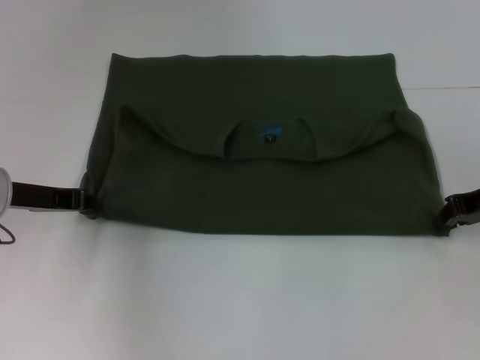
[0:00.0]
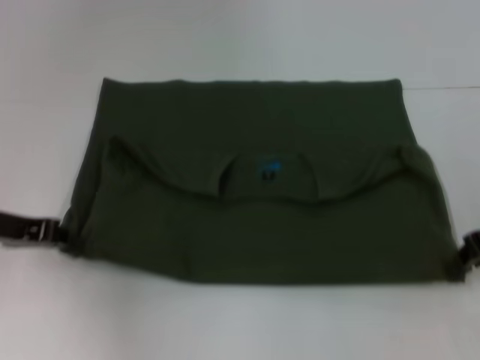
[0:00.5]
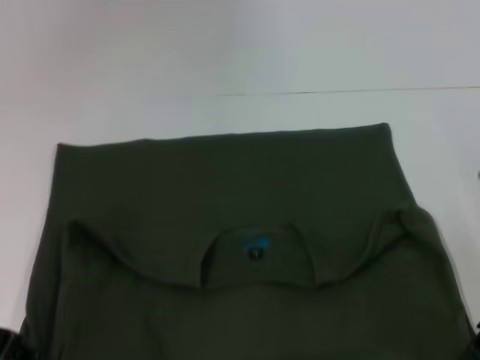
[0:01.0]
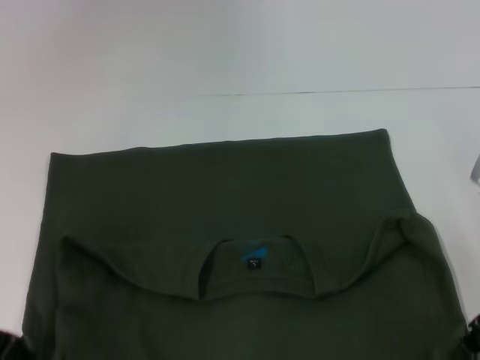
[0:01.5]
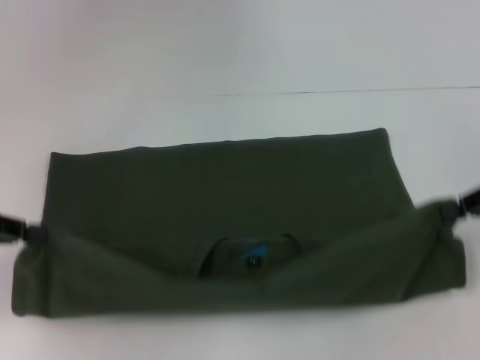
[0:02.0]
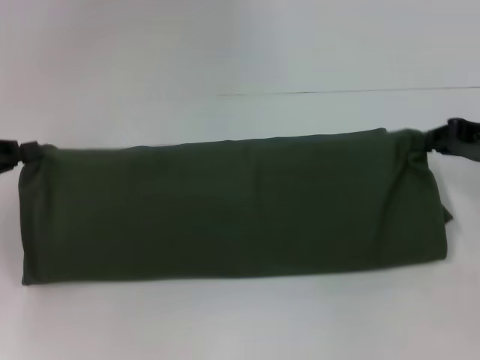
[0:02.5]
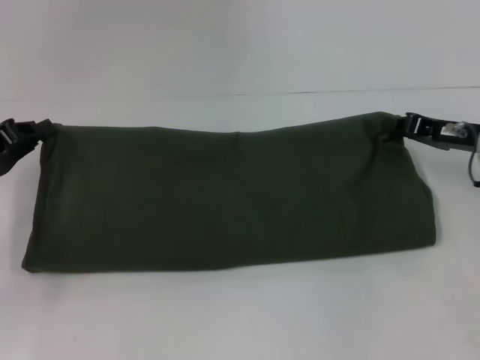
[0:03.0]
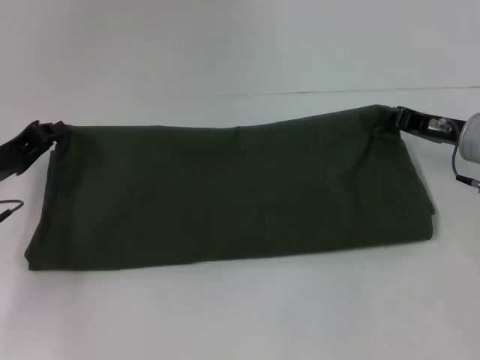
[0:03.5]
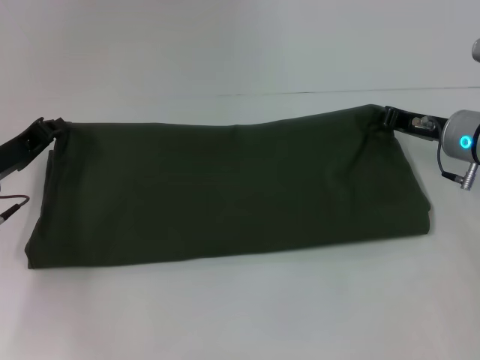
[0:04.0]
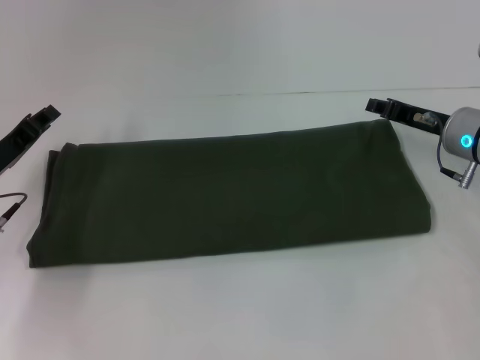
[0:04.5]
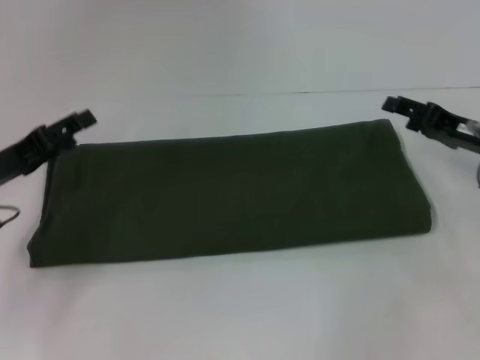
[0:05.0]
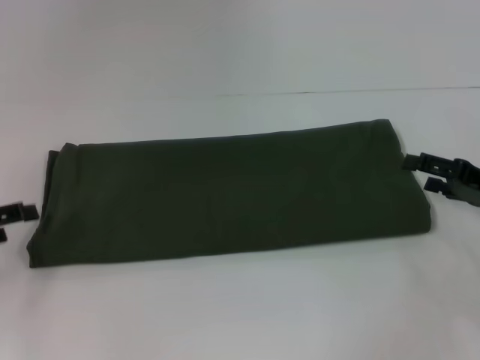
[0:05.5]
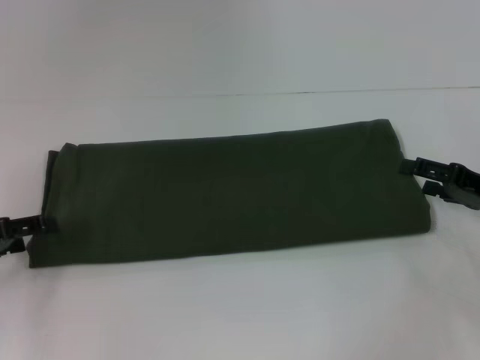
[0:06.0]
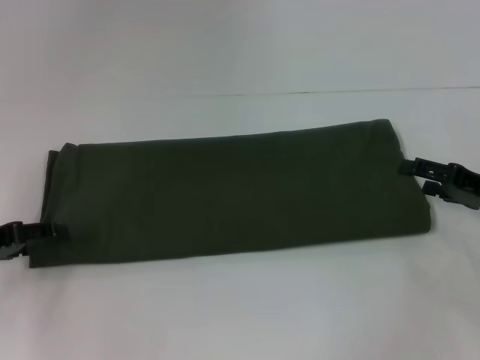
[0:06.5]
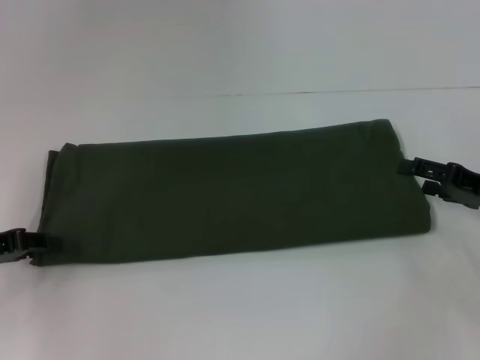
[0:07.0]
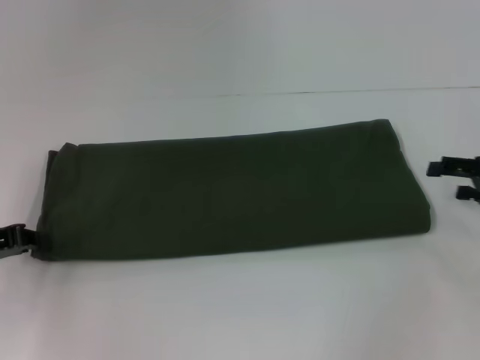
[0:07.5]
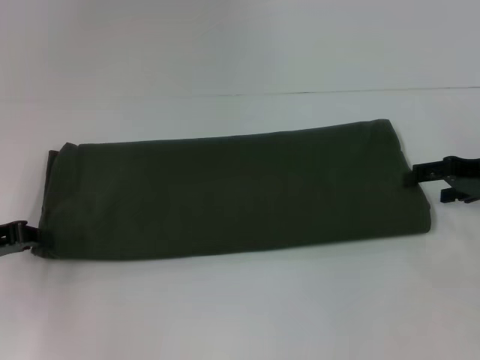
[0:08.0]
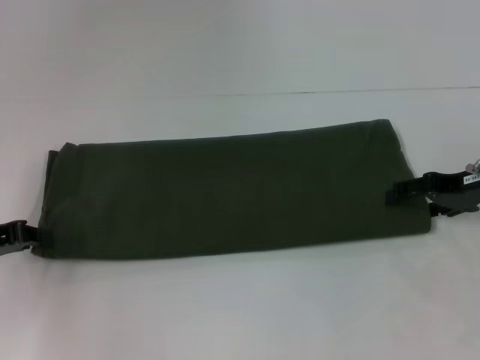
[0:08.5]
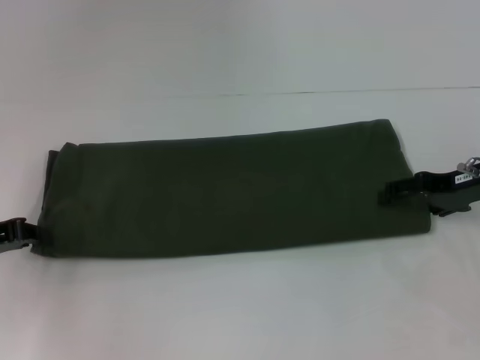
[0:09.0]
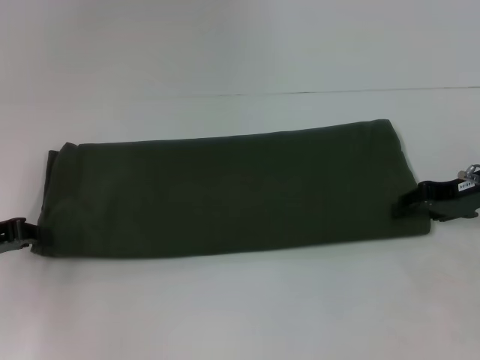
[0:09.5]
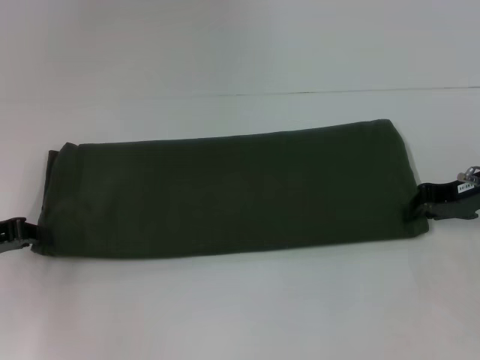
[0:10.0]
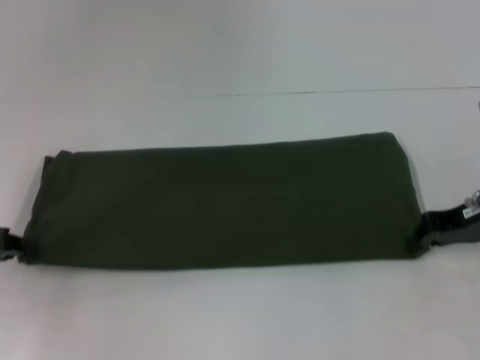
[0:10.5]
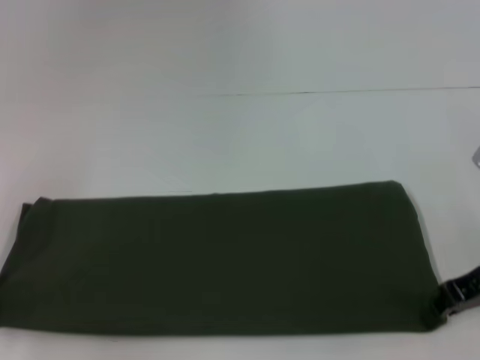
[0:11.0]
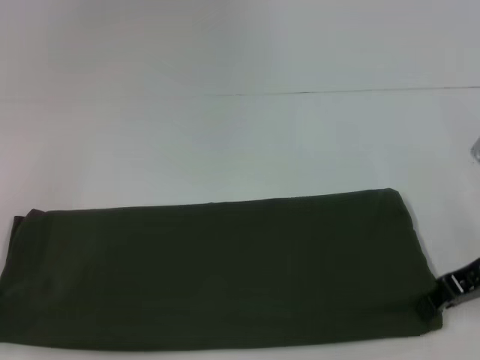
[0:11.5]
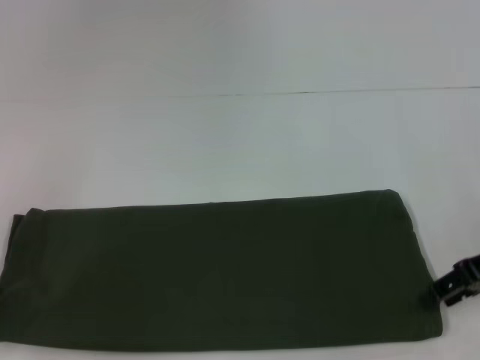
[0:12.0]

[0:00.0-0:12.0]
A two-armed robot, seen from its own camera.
Step, 1.5 to 4.0 s: Fold the clothes with your right hand.
0.0 to 2.0 s: The right gripper shifts about 5 cm upward. Meanwhile the left gripper goes roughly 10 cm to the left, backward and upward.
2.0 to 4.0 s: The left gripper moves downward, forward and to the right, roughly 10 cm; the right gripper heads downward, to the left and forward, covering some 15 cm.
4.0 to 6.0 s: The left gripper heads to the left and backward, covering roughly 10 cm, and opens, while the right gripper shifts roughly 10 cm backward and to the right, and opens its fingers.
6.0 to 8.0 s: The left gripper closes, while the right gripper moves forward, about 5 cm.
8.0 to 10.0 s: The right gripper closes up.
10.0 to 12.0 s: Both grippers travel together backward, some 5 cm.

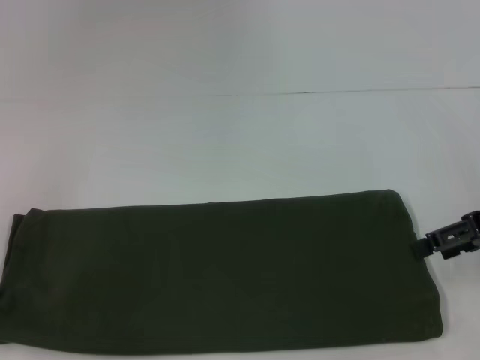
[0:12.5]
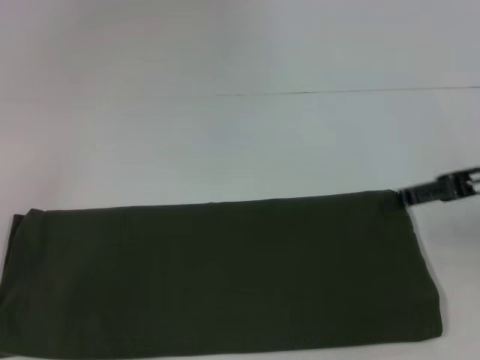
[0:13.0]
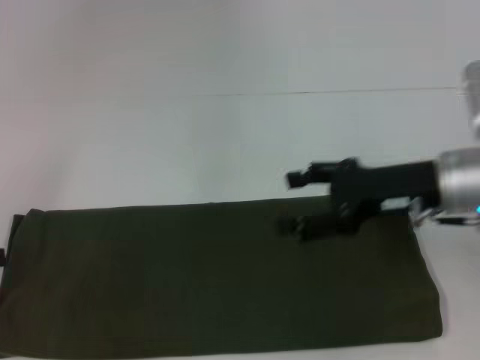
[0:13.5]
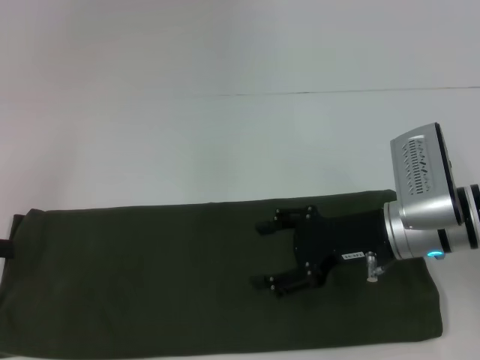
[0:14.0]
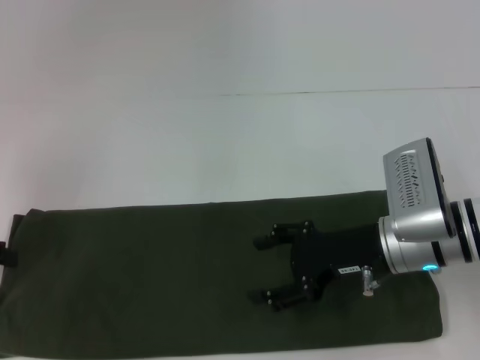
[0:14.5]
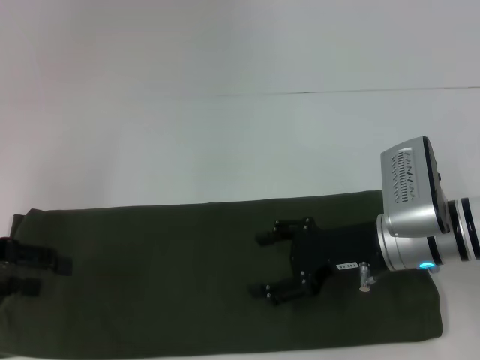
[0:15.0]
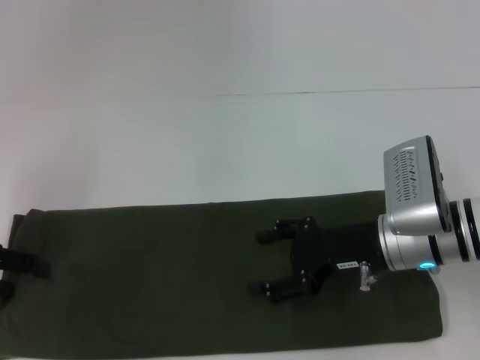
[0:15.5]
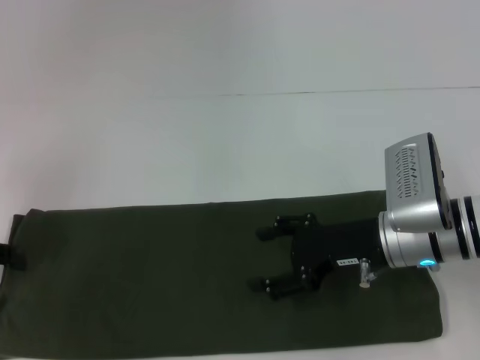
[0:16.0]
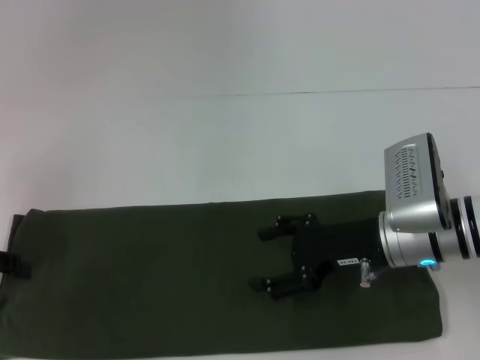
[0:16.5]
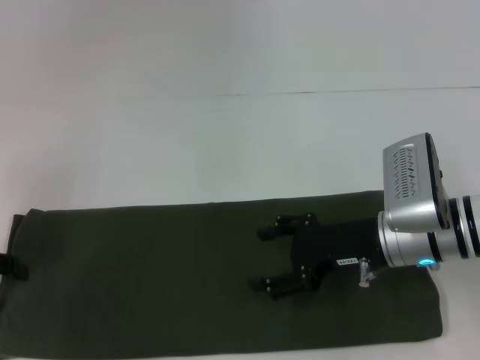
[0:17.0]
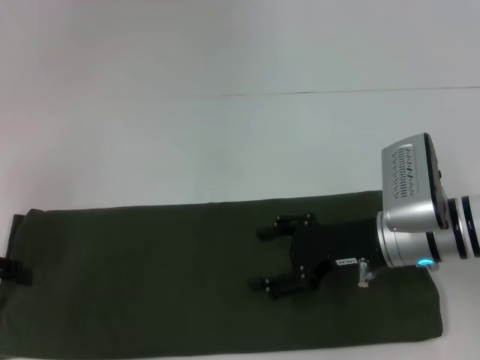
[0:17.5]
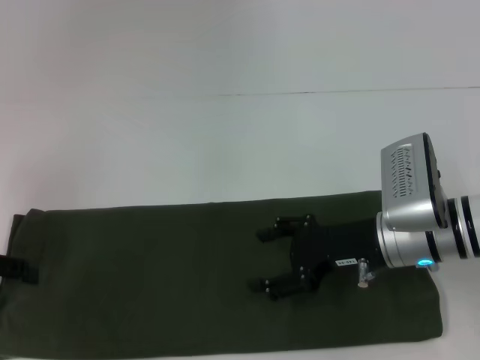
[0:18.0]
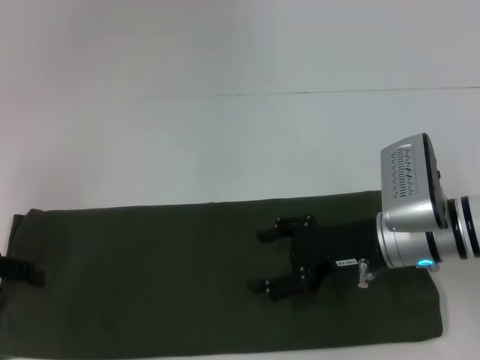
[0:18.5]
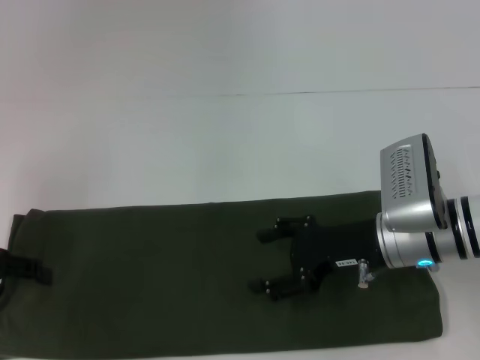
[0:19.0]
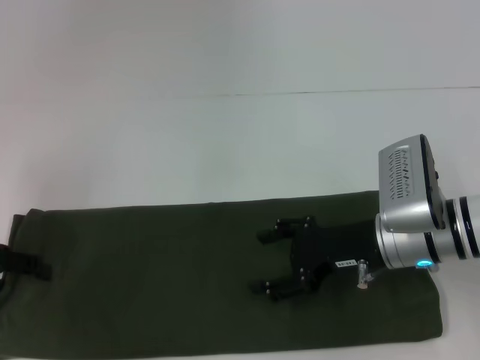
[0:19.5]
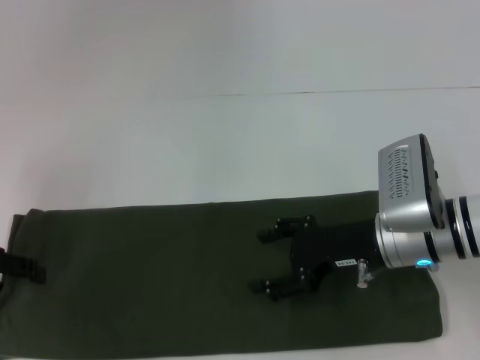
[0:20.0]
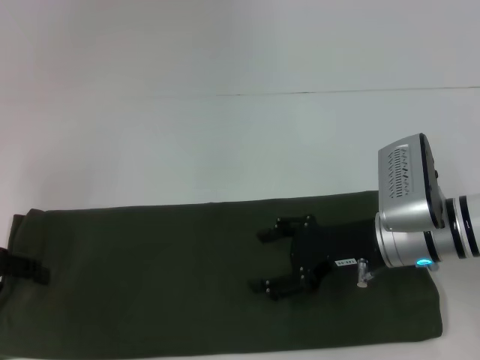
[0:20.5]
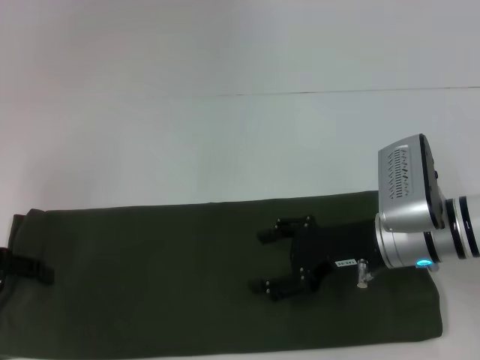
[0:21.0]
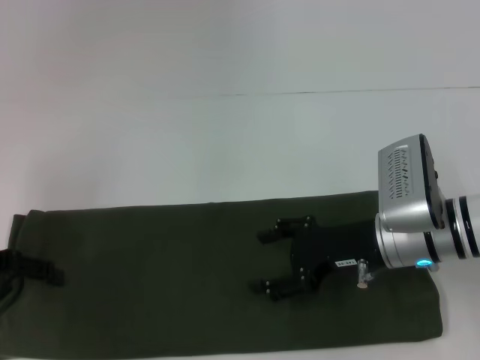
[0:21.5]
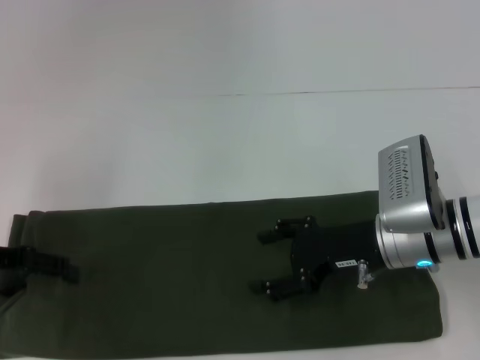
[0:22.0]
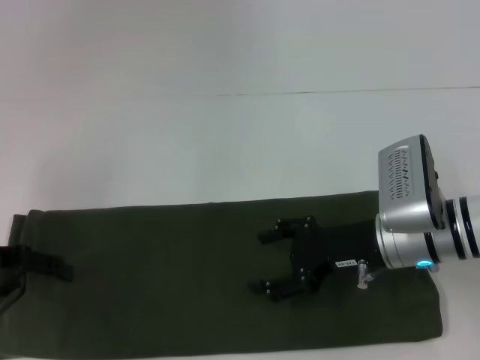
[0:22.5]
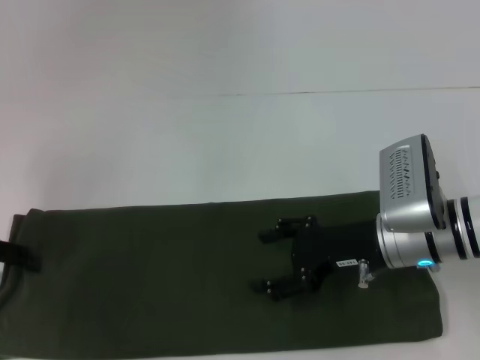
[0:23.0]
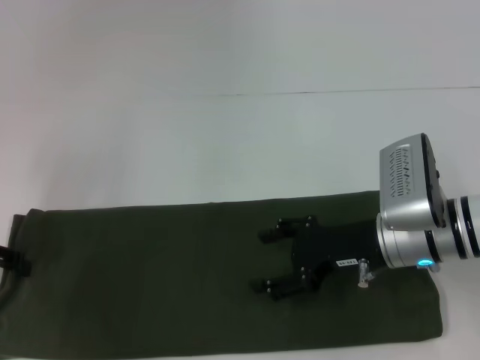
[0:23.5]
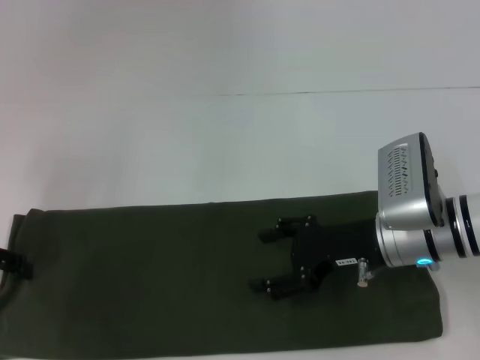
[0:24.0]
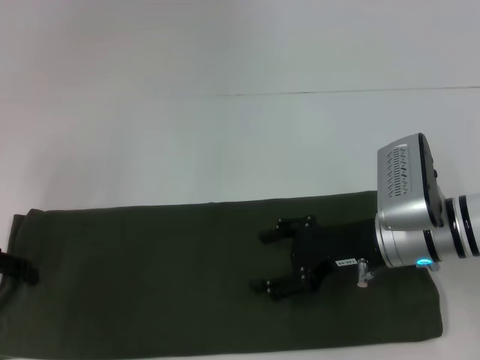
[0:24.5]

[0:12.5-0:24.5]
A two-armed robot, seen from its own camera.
12.5 to 14.5 s: The left gripper heads forward, covering about 5 cm, and opens up. Meanwhile the right gripper goes some 15 cm to the left and downward.
14.5 to 16.5 s: The grippers stay close to where they were, moving slightly.
16.5 to 18.5 s: Neither gripper changes place.
18.5 to 20.5 s: Both grippers stay about where they are.
22.5 to 24.5 s: There are only small adjustments of the grippers.

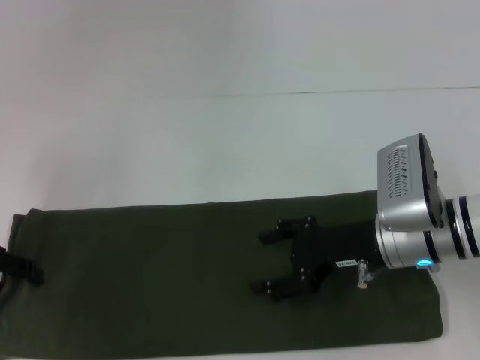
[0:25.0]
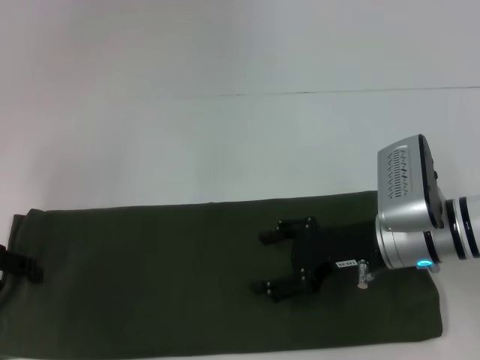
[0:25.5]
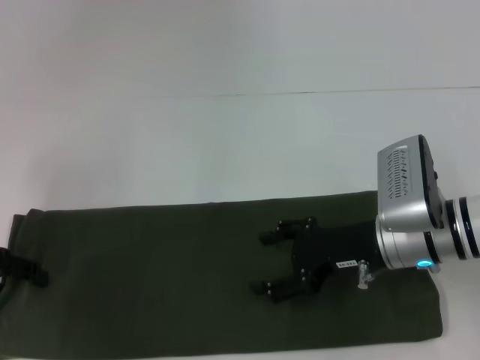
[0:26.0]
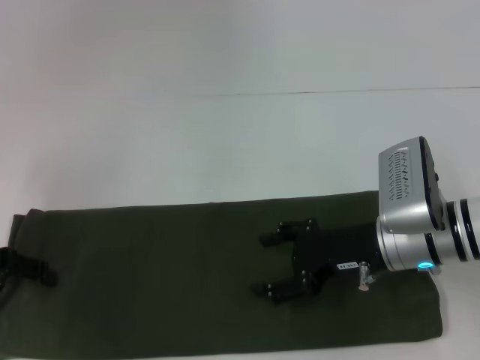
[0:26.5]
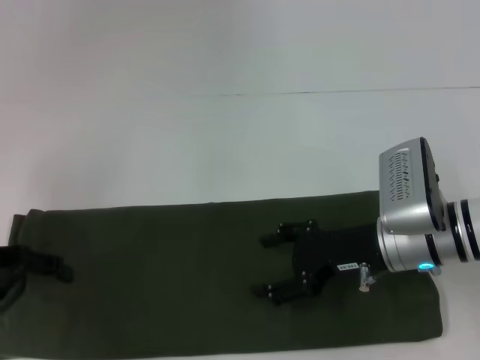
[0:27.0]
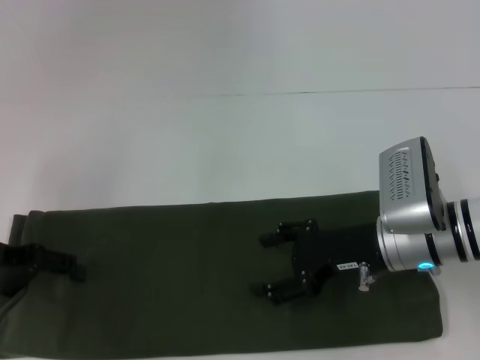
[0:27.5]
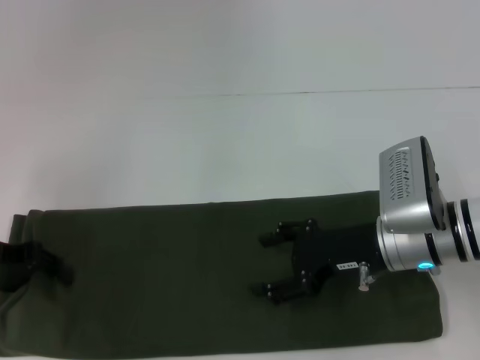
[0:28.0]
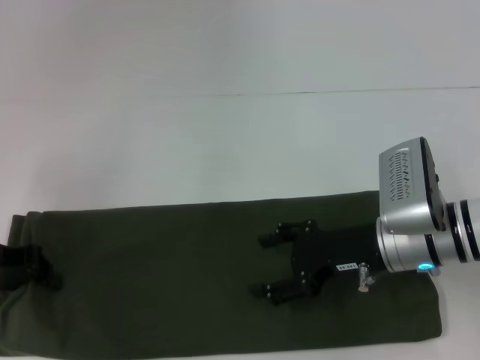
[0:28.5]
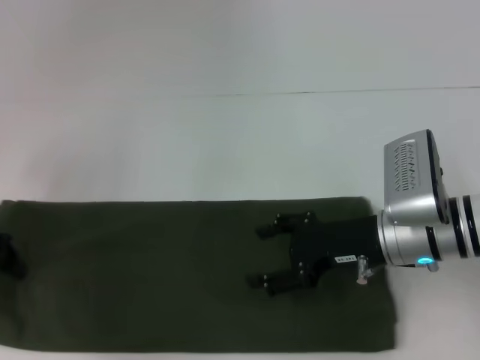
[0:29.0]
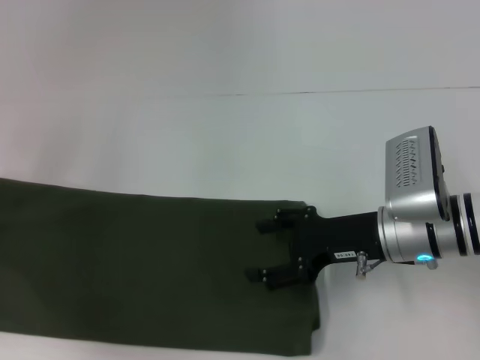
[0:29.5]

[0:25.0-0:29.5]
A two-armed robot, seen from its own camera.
25.0 to 27.0 s: The grippers move only a little.
27.0 to 29.5 s: The left gripper goes roughly 5 cm to the left, and closes.
